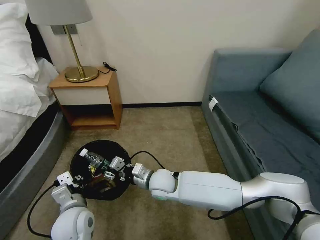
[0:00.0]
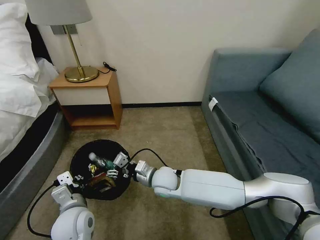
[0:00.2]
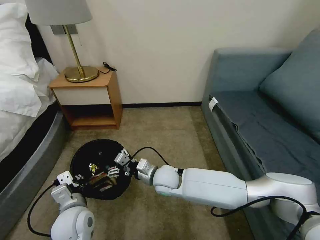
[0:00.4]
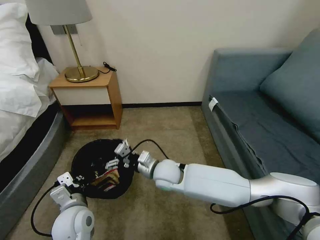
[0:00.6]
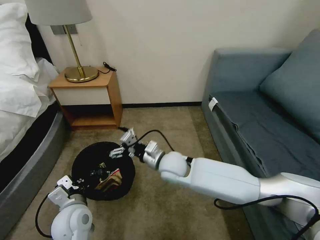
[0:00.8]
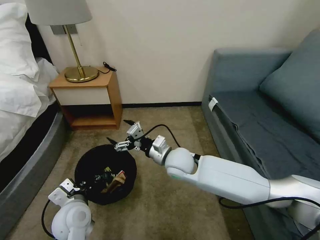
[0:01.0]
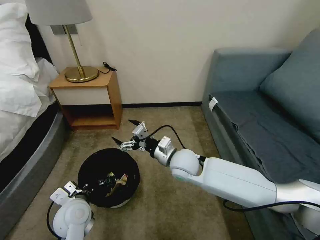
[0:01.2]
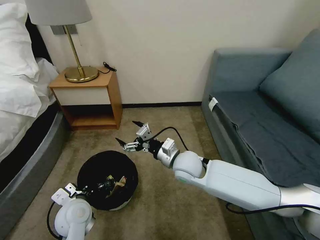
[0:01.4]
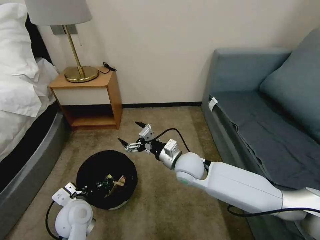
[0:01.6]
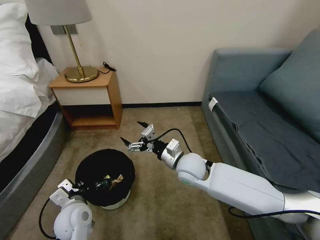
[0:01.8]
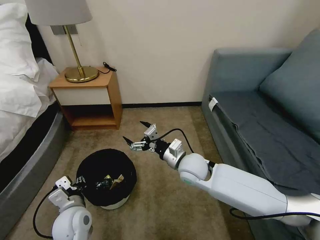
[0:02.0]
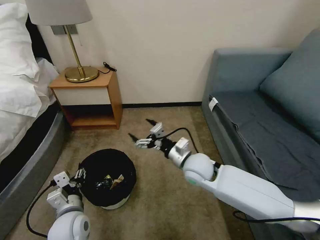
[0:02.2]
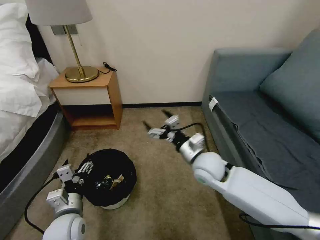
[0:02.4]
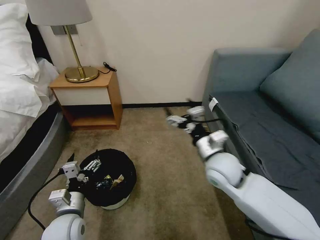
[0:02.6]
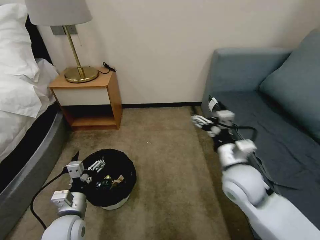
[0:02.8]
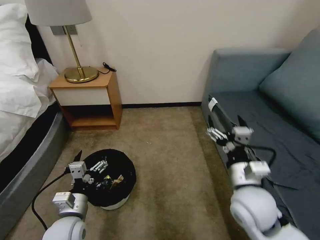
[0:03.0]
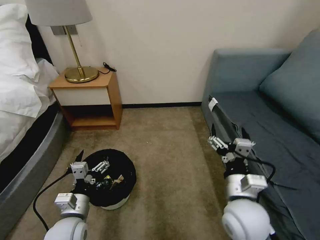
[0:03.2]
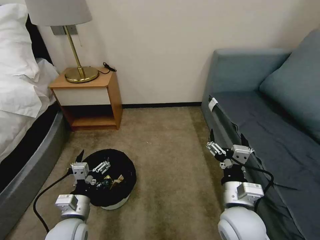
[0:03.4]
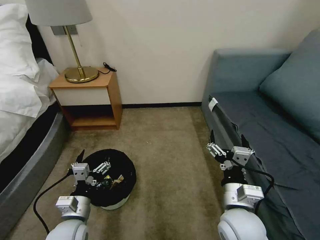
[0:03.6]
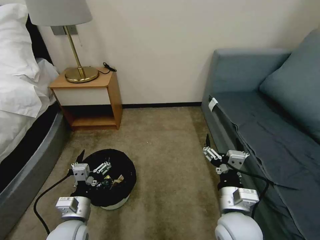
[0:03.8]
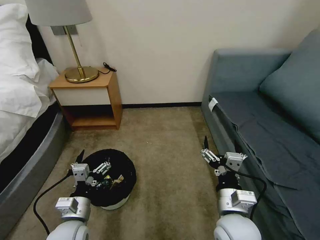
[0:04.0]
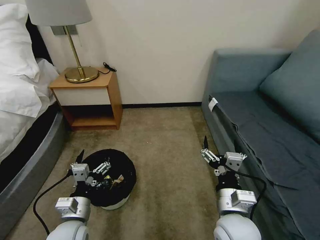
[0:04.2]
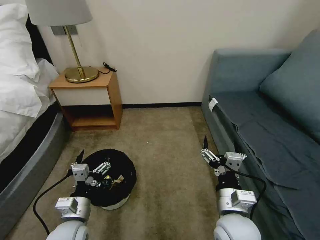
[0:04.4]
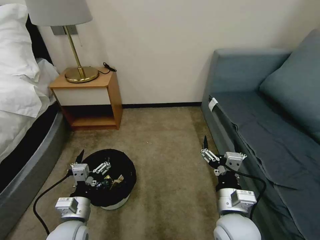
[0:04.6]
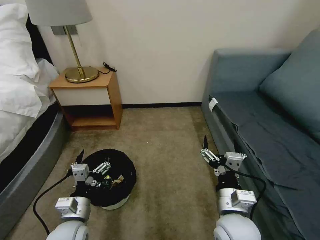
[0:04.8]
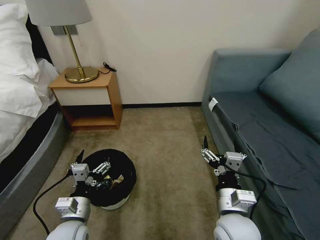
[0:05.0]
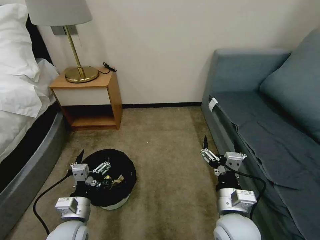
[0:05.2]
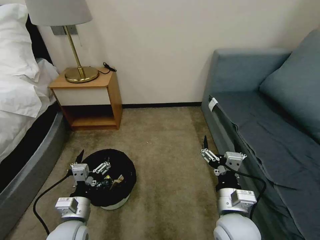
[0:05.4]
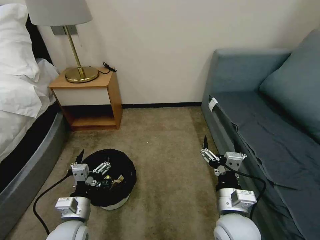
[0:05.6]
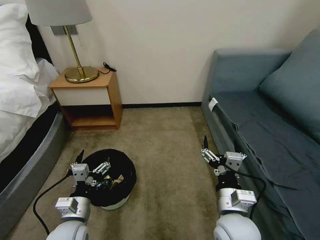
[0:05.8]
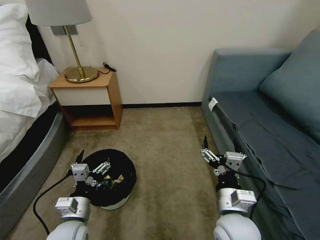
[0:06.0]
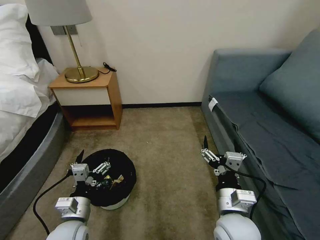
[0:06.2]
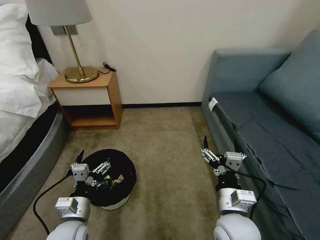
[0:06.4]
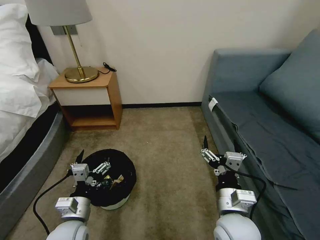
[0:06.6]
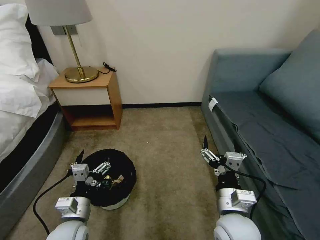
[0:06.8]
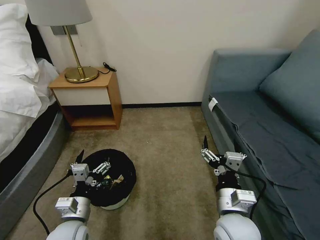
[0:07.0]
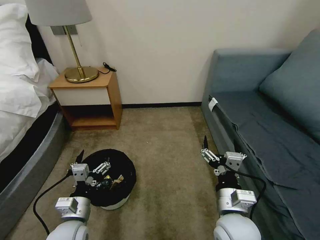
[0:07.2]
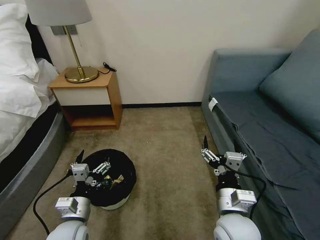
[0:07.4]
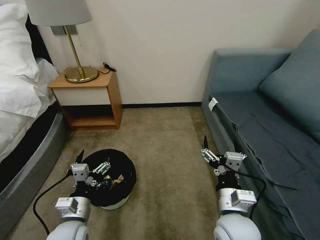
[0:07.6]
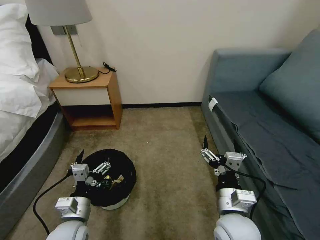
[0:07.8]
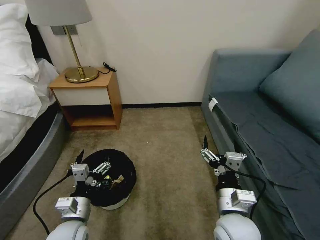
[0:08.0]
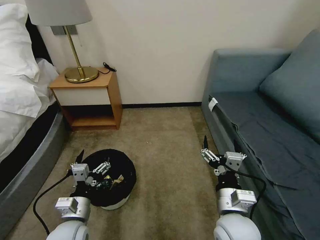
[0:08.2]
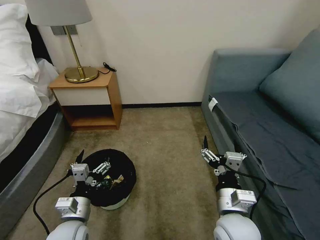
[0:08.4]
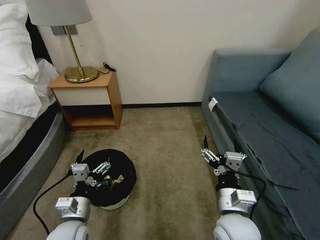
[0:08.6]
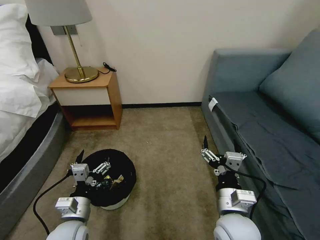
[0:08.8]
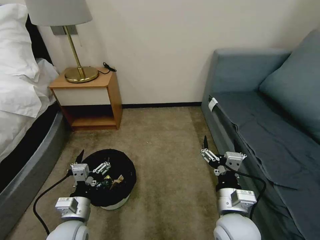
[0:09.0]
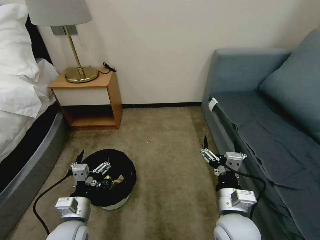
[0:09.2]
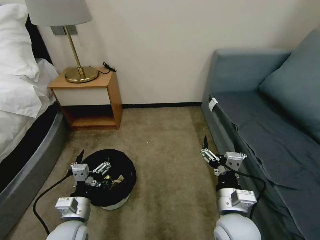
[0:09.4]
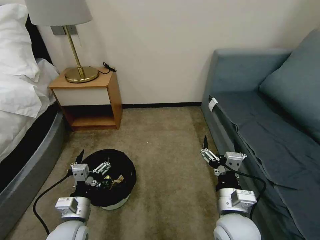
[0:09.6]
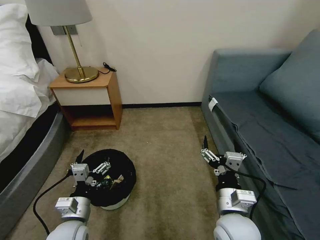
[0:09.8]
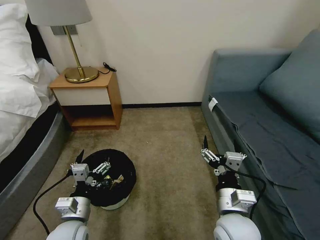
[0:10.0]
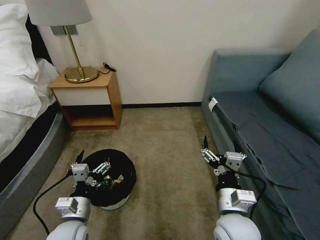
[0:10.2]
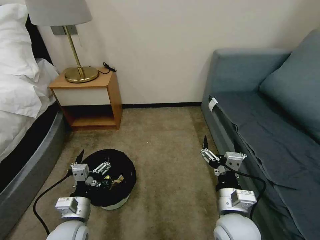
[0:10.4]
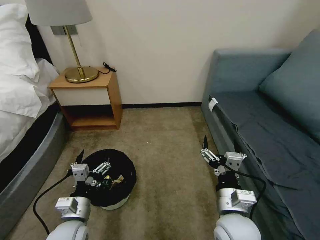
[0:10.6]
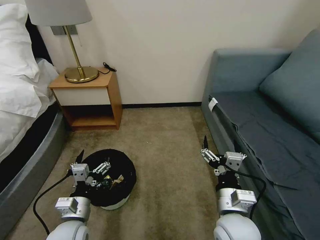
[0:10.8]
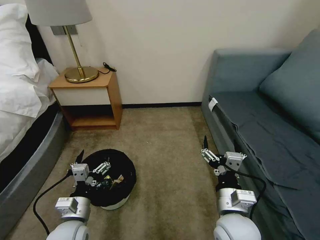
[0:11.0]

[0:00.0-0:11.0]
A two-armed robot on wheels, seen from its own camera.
Task of the whole recording: Pick up the trash bin, then pick up the garbage on the floor and place it into the trash bin.
0:00.0 to 0:01.6: The right gripper is displaced to the right and upward by some 10 cm, and opens up.
0:01.6 to 0:03.2: The left gripper opens its fingers; the right gripper shifts some 20 cm backward and to the right.
0:03.2 to 0:04.8: The grippers move only a little.
0:04.8 to 0:11.0: Both grippers stay about where they are.

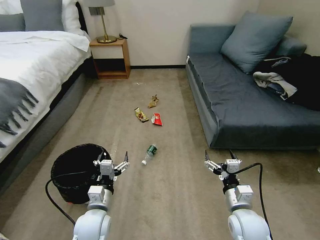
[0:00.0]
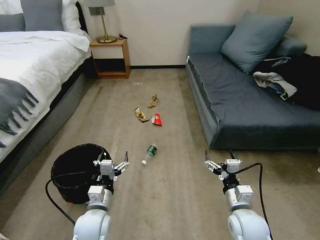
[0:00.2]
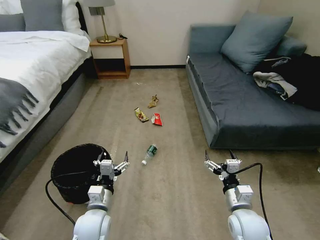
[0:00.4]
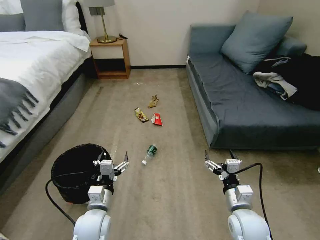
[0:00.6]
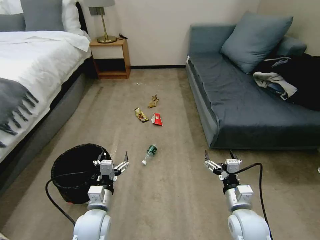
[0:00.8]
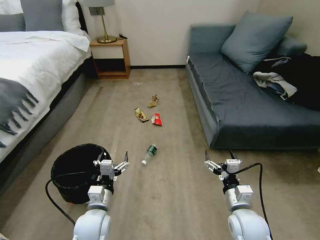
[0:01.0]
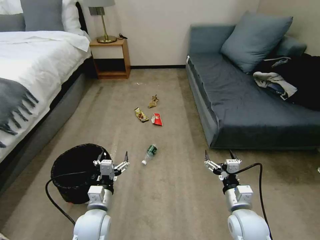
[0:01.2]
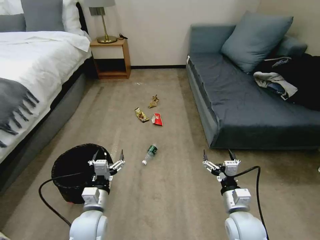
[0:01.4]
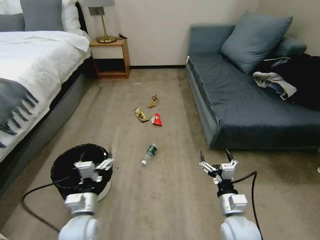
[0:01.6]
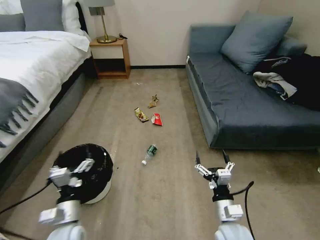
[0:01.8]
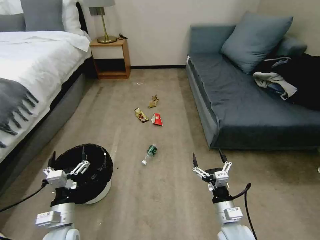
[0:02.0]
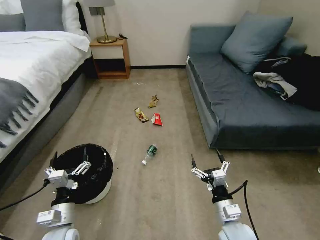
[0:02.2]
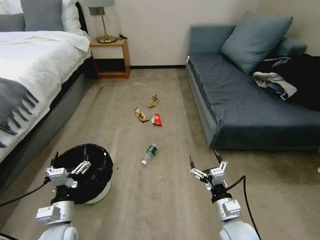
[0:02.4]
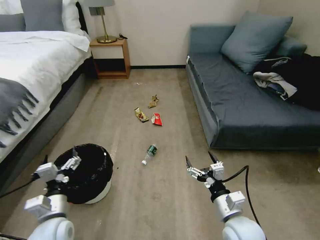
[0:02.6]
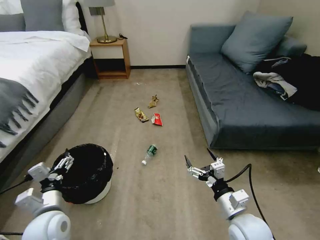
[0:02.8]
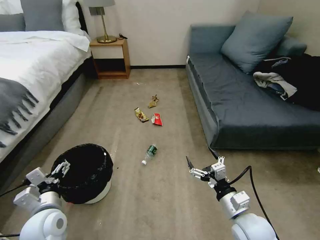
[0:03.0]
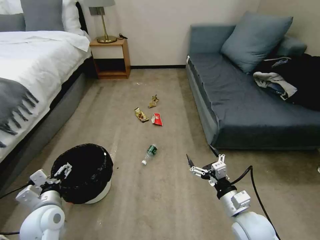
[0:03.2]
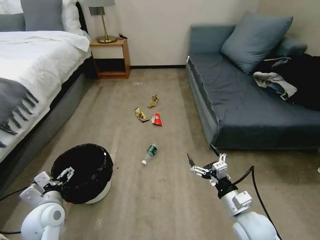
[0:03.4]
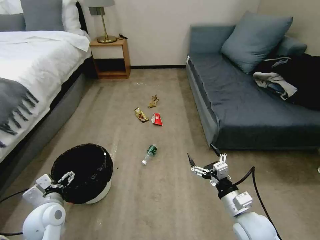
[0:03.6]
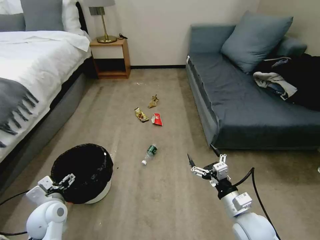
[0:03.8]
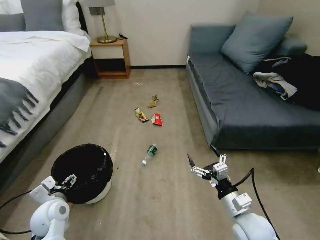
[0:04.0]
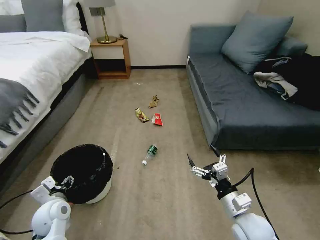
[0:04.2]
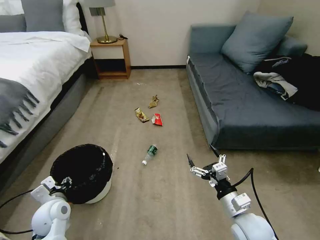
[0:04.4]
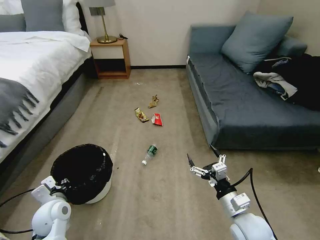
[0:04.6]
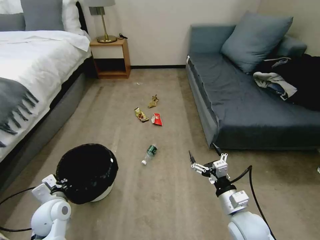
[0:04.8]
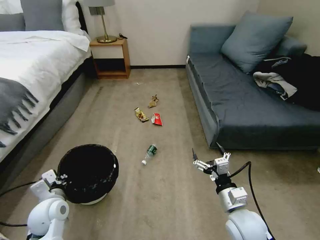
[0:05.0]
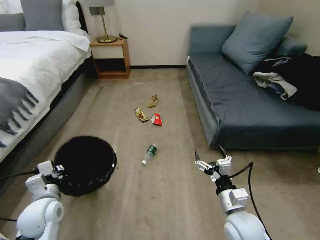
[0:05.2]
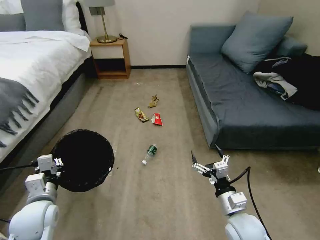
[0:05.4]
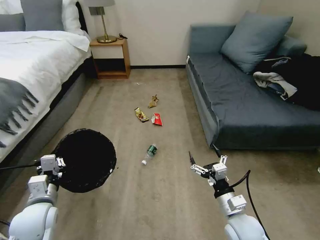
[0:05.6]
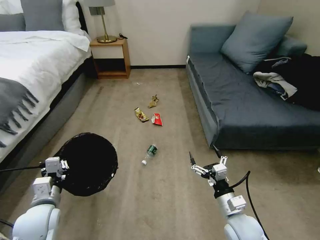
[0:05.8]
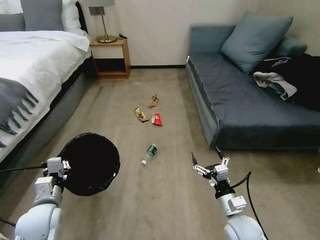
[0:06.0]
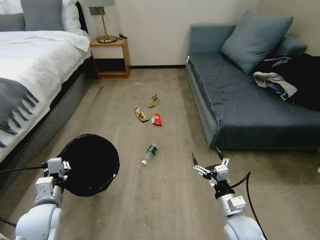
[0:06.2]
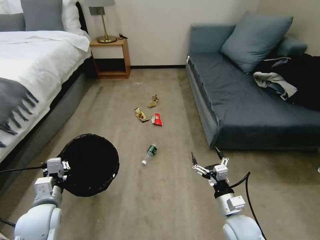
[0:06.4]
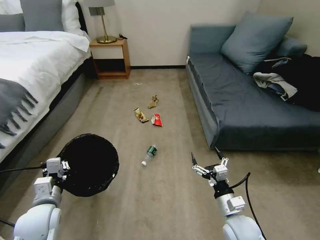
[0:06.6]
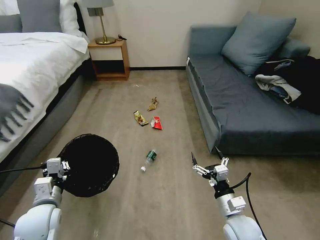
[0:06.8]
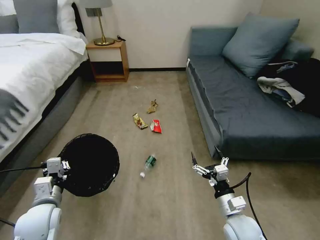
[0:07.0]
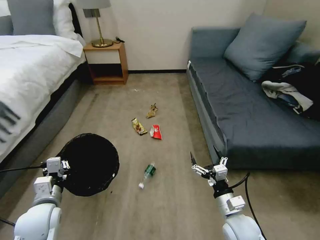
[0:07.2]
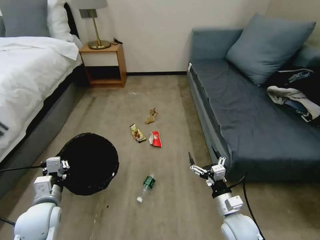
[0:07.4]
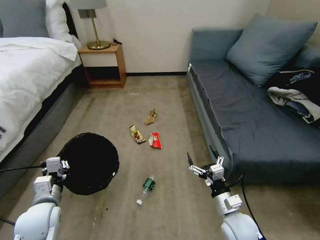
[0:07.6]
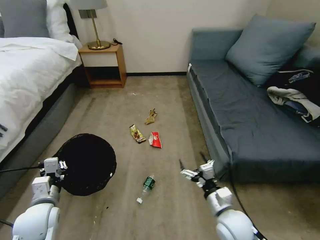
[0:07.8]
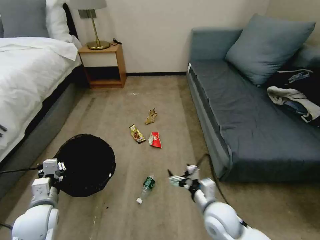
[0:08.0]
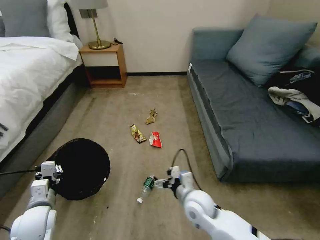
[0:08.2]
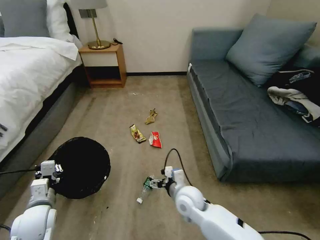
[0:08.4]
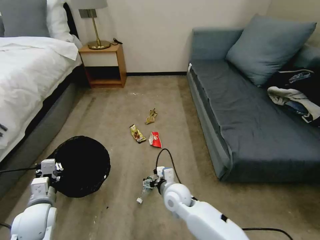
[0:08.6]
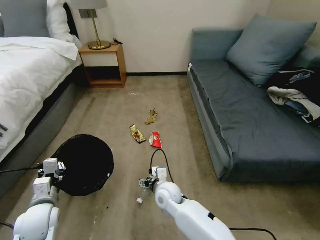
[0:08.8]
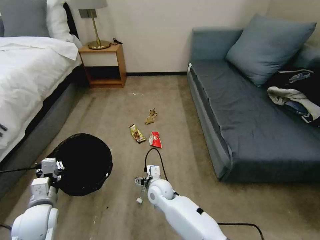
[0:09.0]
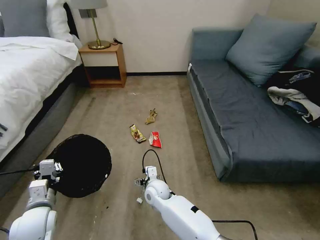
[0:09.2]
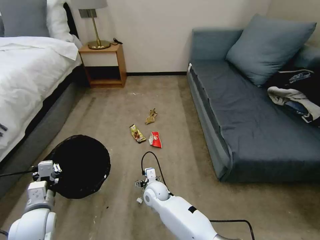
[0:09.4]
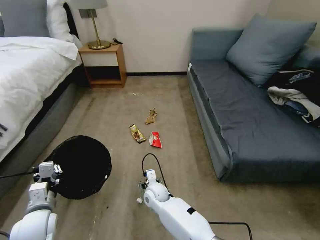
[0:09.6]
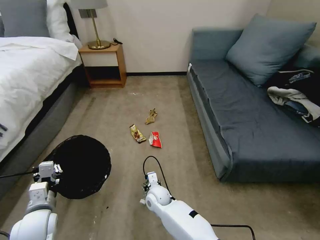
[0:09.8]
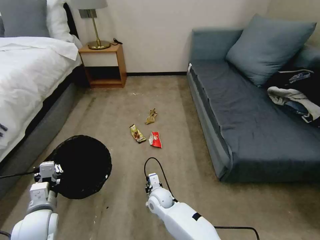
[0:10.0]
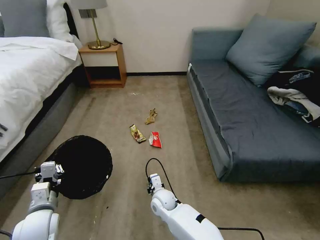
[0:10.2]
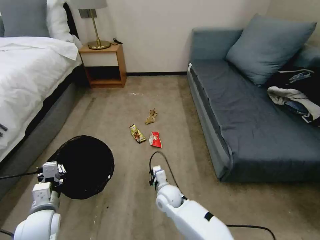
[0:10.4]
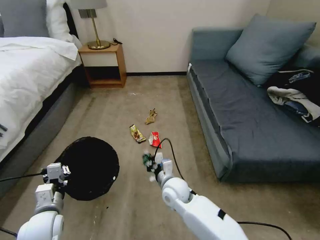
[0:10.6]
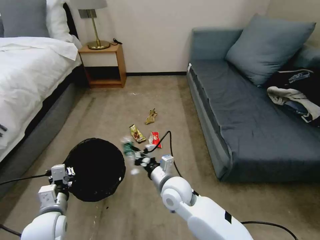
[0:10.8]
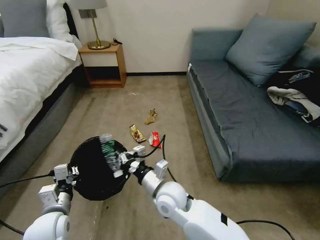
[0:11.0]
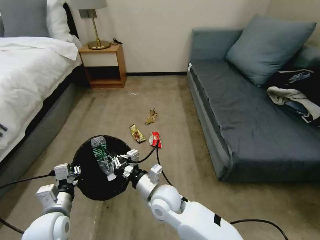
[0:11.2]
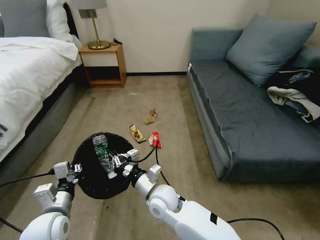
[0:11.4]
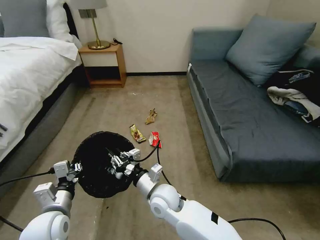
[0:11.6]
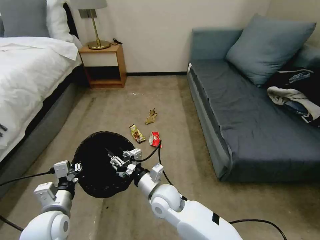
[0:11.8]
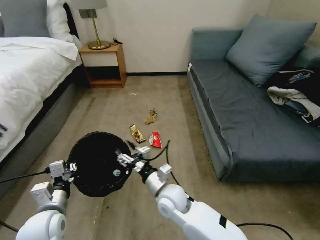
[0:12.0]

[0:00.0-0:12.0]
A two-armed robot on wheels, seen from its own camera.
Task of the whole recording: Pick up the trash bin, then pick up the garbage on the floor and place it into the trash bin.
0:01.6 to 0:03.0: The left gripper shifts some 10 cm to the left and upward.
0:03.0 to 0:04.4: The left gripper travels downward by roughly 5 cm, and closes its fingers.
0:04.4 to 0:06.0: The left gripper shifts by about 5 cm, and closes up.
0:07.6 to 0:09.0: The right gripper moves to the left and forward, some 25 cm.
0:09.0 to 0:10.4: The right gripper closes.
0:10.4 to 0:12.0: The right gripper goes some 10 cm upward, and opens.
